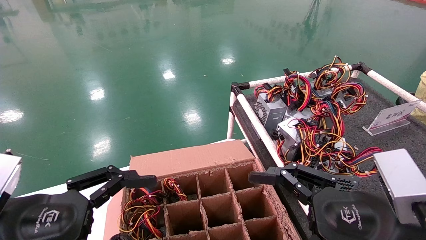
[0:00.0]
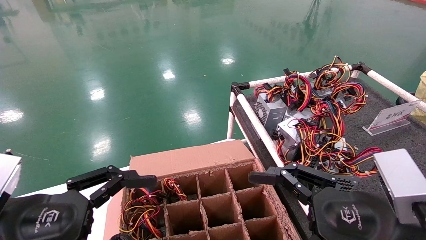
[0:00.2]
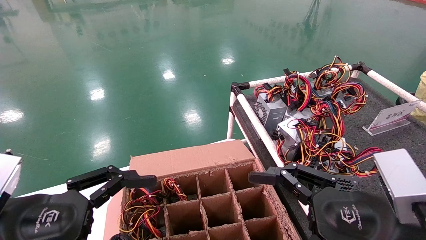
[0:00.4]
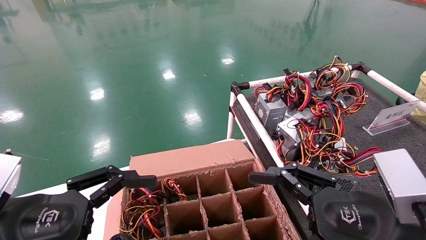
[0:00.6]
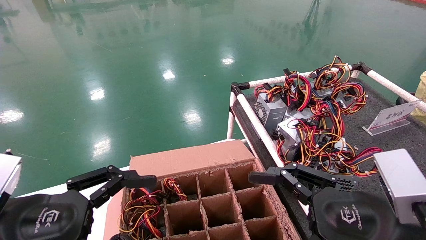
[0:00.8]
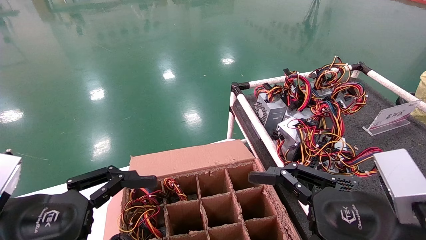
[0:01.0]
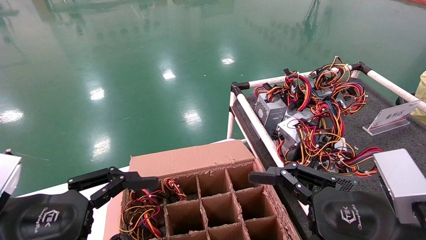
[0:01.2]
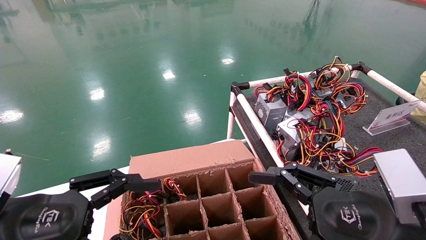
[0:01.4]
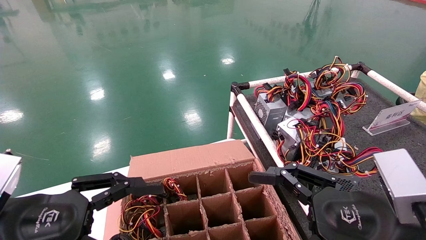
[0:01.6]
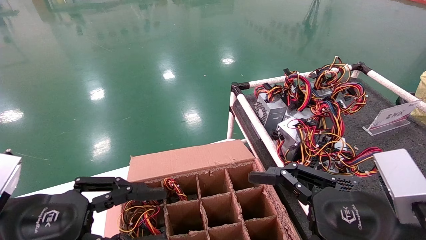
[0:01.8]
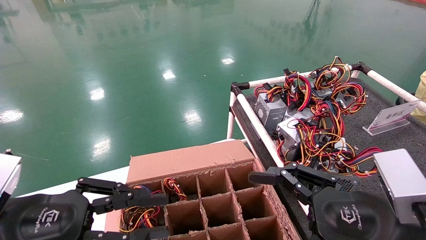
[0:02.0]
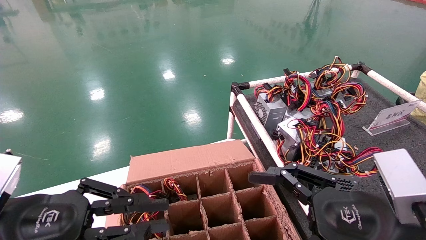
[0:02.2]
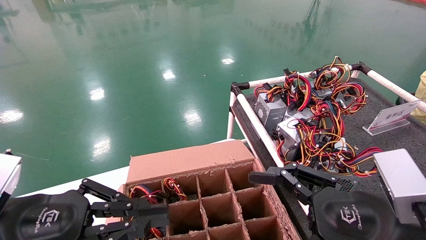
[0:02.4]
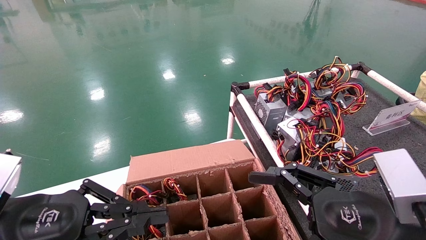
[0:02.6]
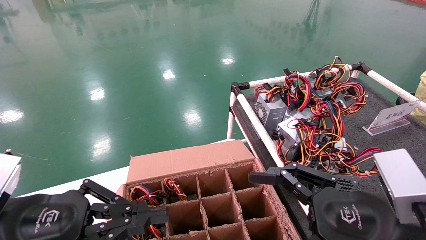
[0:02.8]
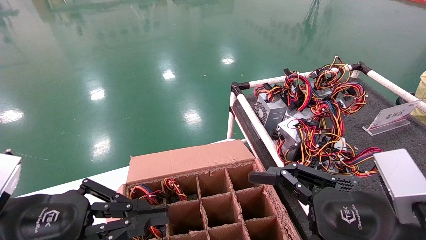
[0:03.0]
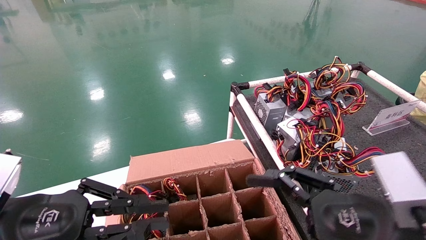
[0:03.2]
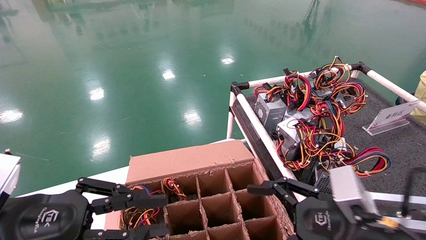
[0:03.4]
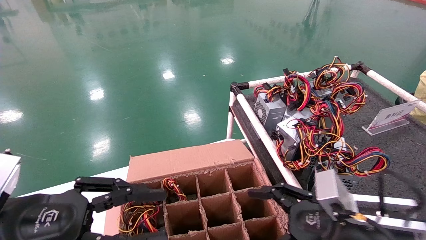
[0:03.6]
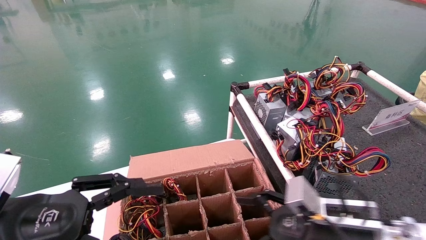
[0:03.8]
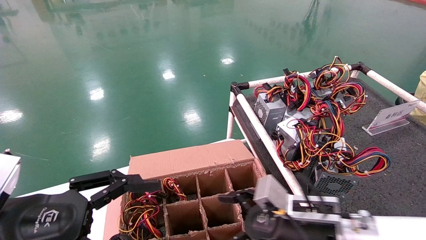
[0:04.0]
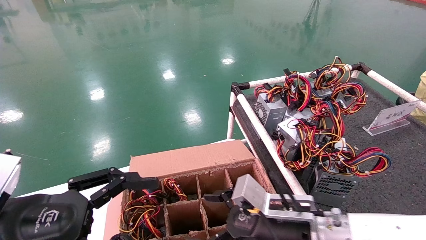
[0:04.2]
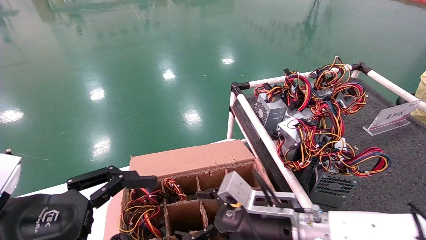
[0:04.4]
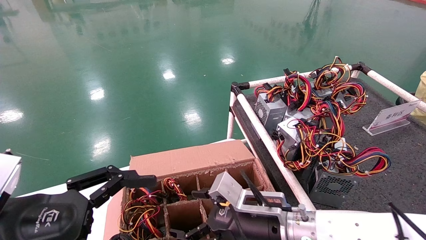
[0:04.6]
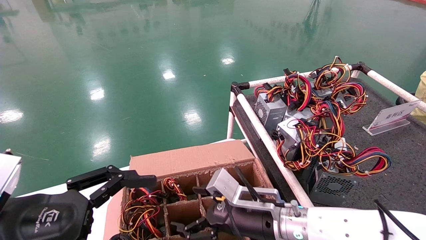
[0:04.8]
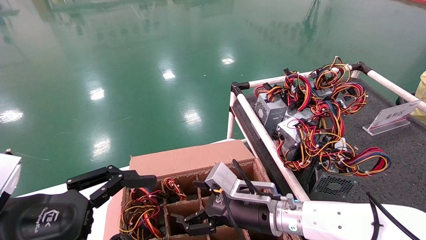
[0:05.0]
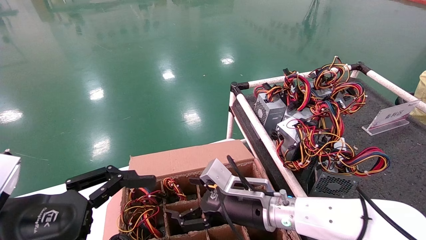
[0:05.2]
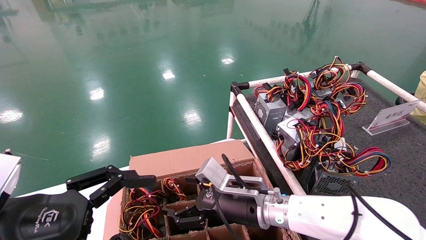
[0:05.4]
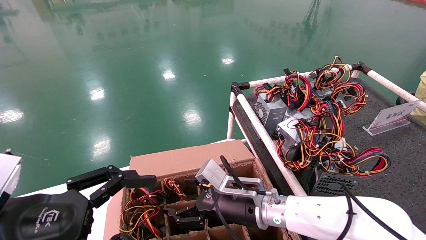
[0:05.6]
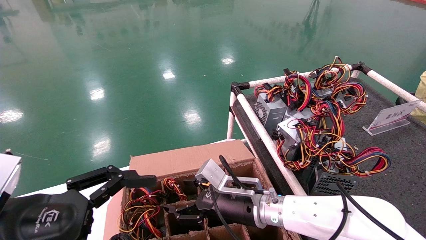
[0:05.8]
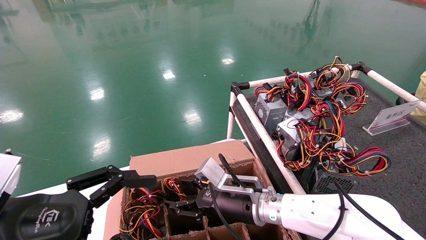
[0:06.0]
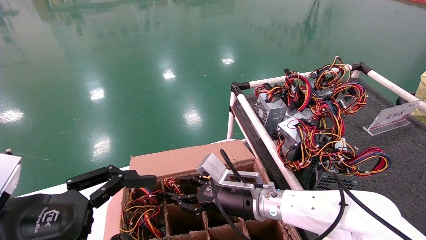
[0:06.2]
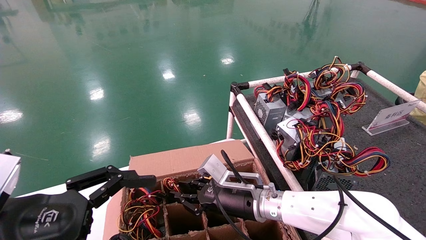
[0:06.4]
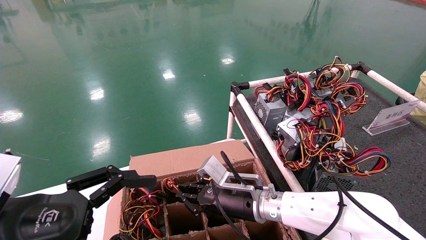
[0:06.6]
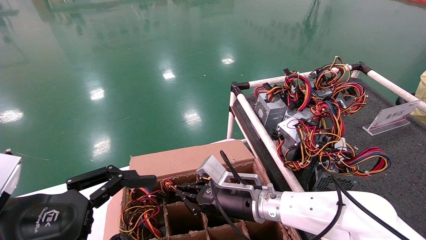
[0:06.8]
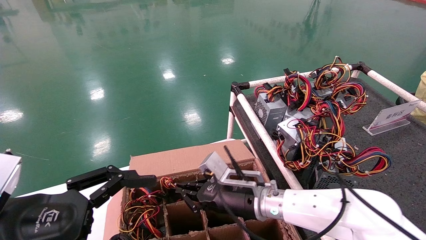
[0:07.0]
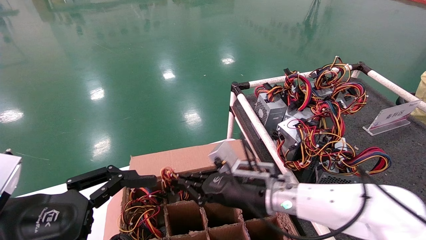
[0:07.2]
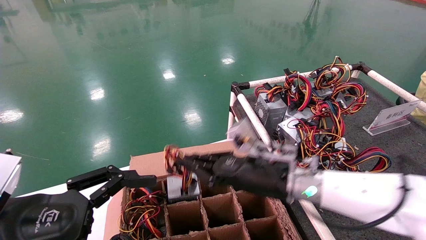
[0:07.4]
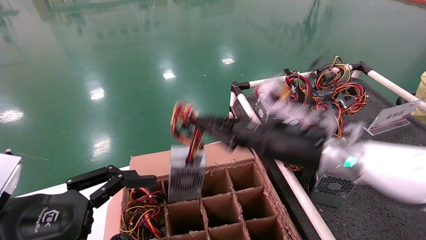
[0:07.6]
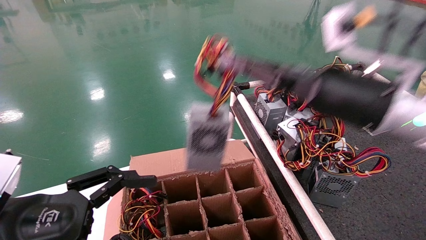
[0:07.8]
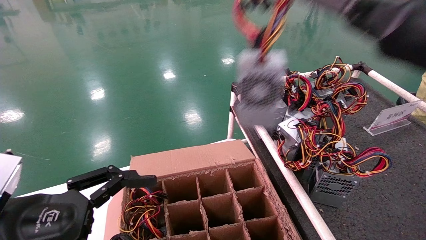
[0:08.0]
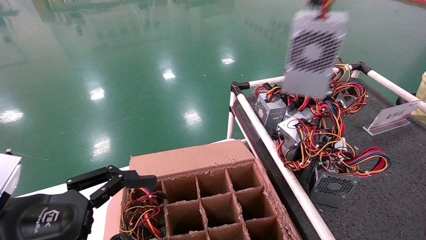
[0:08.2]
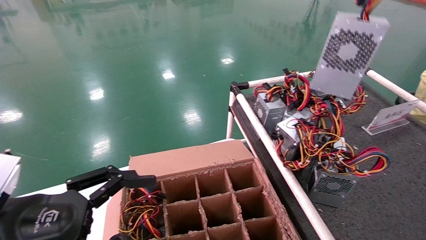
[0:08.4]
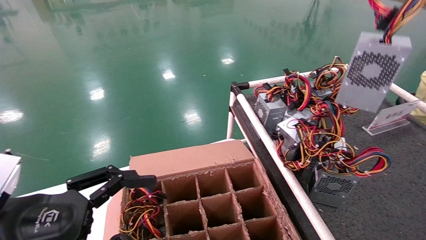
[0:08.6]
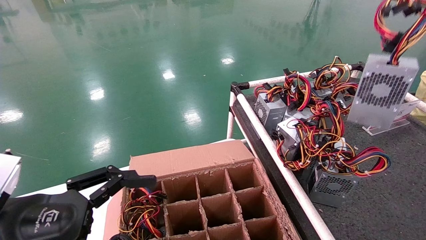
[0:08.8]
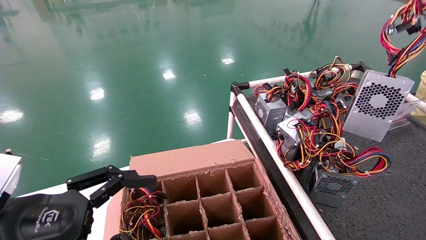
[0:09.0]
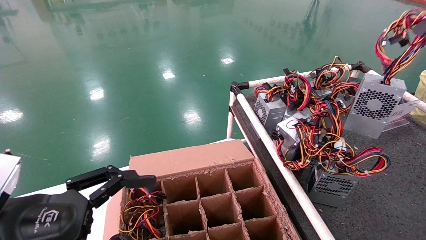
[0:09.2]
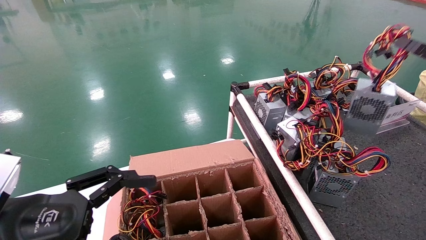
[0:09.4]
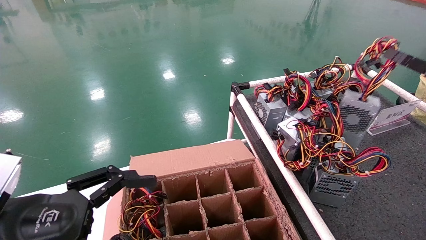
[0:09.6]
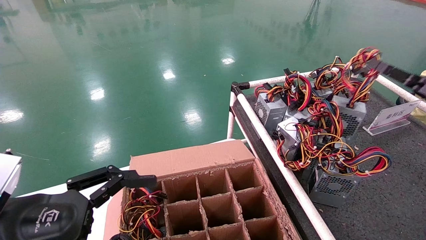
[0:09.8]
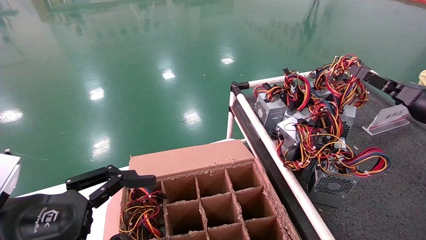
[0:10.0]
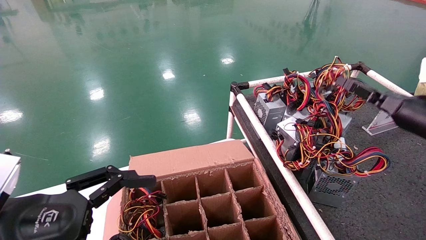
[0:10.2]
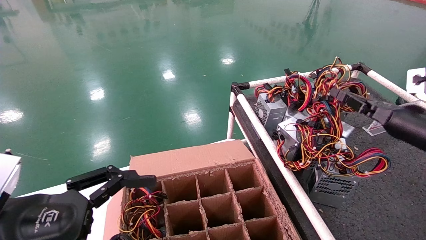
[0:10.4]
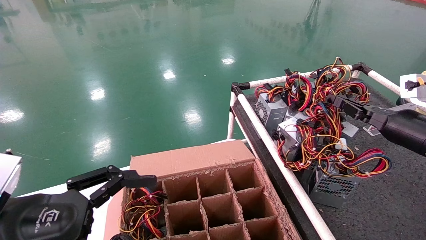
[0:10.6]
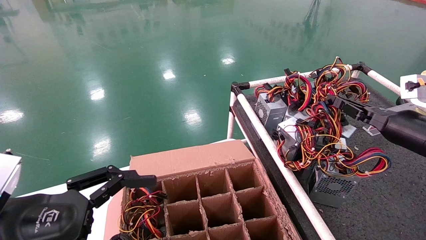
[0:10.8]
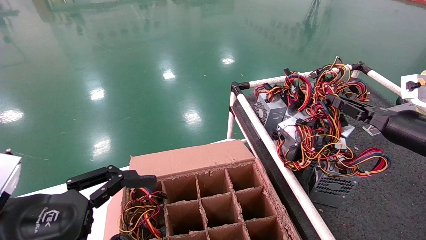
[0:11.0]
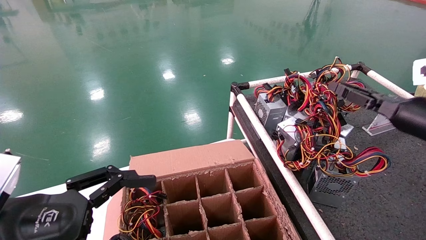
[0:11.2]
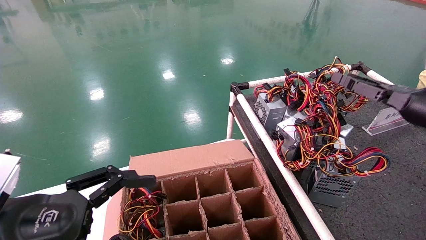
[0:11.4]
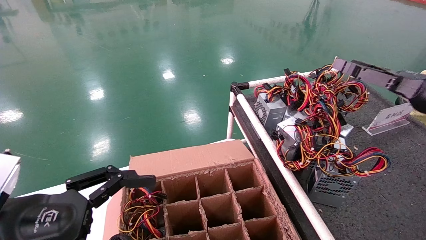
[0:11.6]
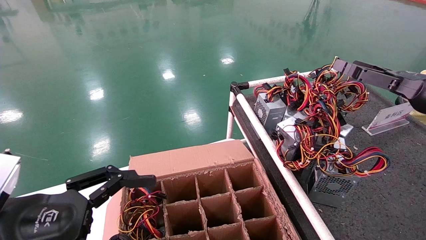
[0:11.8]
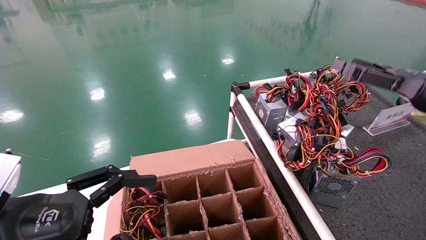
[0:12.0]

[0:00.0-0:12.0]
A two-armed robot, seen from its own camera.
Step, 0:01.8 to 0:06.8: Grab and lift the power supply from the large box.
Step, 0:07.0 to 0:11.0: Place the power supply on the operating table.
0:00.0 to 0:01.6: Both grippers stay put.
0:01.6 to 0:03.0: The left gripper closes up.
0:03.0 to 0:04.4: The right gripper is displaced forward, to the left and downward by roughly 20 cm. Meanwhile the left gripper opens its fingers.
0:04.4 to 0:06.0: The right gripper travels forward by some 5 cm.
0:06.0 to 0:07.6: The right gripper goes about 20 cm upward, to the right and backward, and closes.
0:07.6 to 0:09.0: The right gripper shifts roughly 30 cm to the right.
0:09.0 to 0:10.4: The right gripper heads forward, downward and to the left, covering about 15 cm.
0:10.4 to 0:12.0: The right gripper is displaced upward and backward by some 10 cm, and opens.

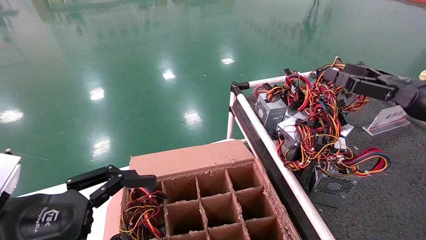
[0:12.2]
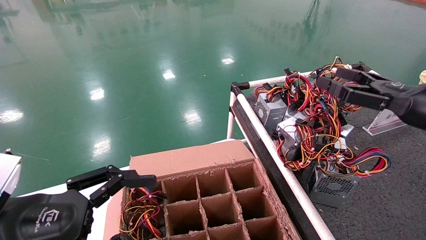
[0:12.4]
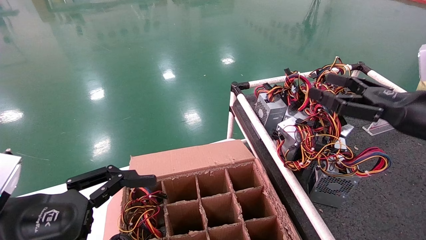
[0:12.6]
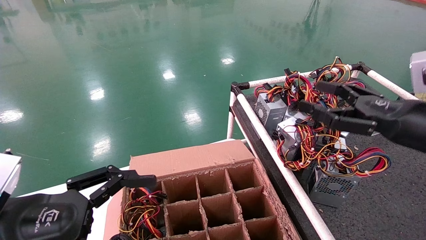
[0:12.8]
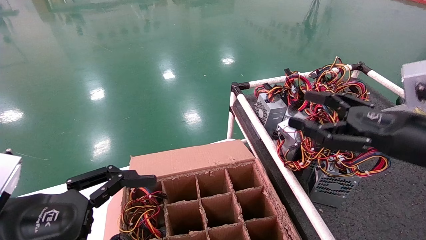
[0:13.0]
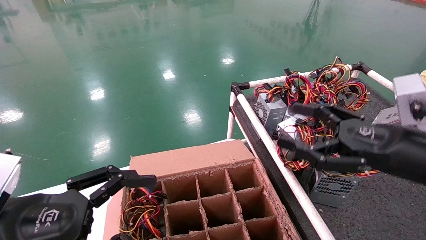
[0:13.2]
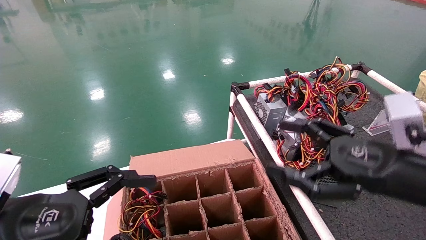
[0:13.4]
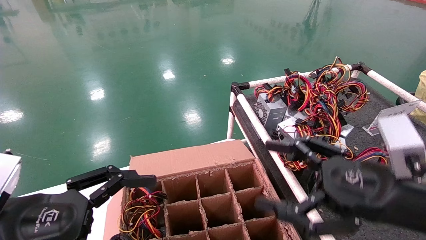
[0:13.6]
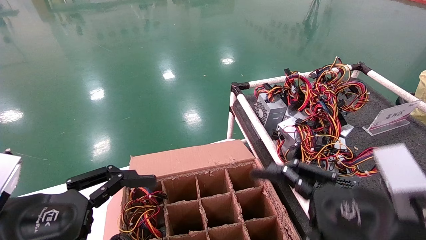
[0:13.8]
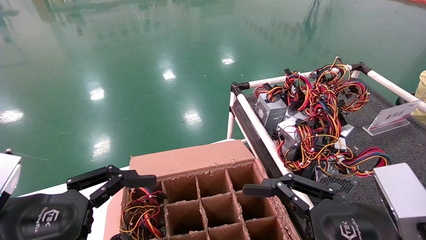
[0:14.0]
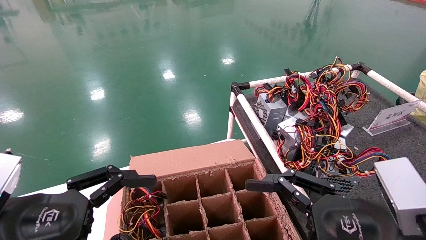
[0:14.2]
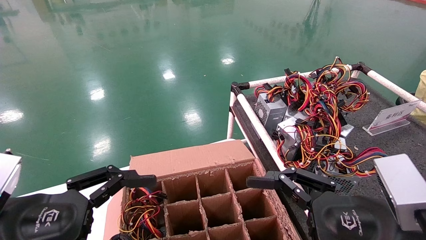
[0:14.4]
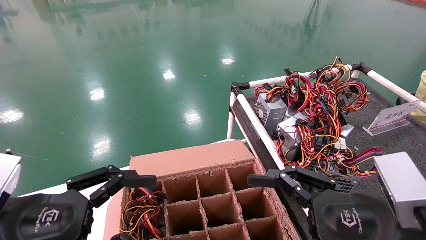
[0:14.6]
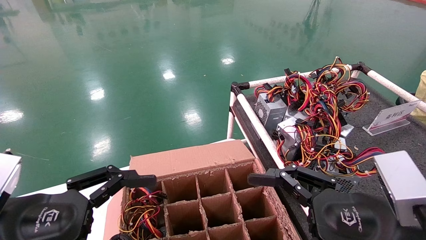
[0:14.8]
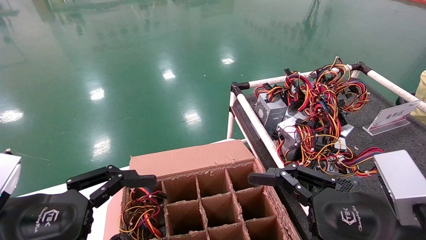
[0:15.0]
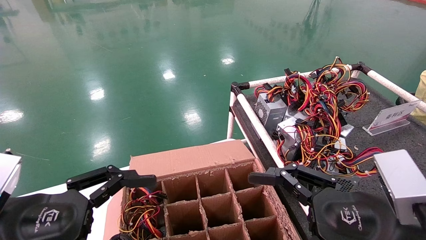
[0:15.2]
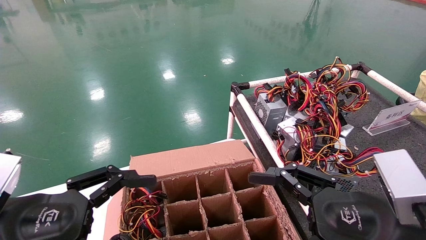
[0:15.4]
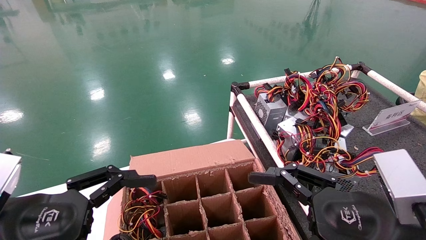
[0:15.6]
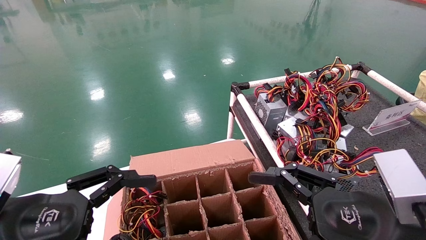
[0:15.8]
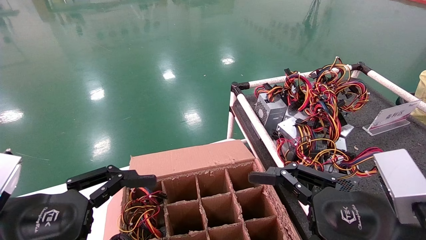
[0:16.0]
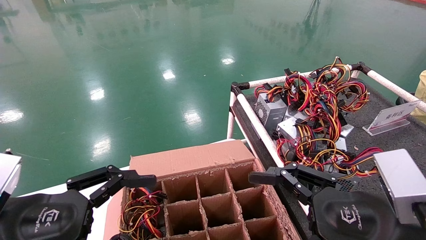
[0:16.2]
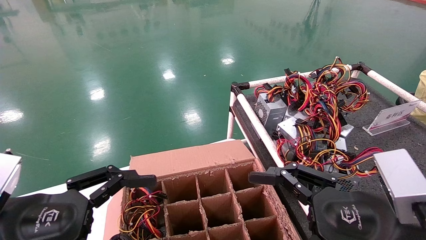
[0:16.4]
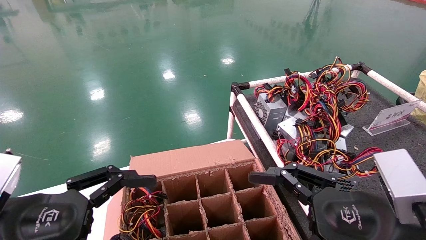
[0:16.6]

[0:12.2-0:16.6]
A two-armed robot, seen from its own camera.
0:12.2 to 0:13.6: The right gripper shifts roughly 20 cm to the left, backward and downward.
0:13.6 to 0:15.2: The grippers make only small movements.
0:15.2 to 0:16.6: Neither gripper changes place.
